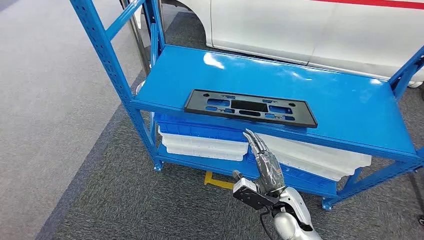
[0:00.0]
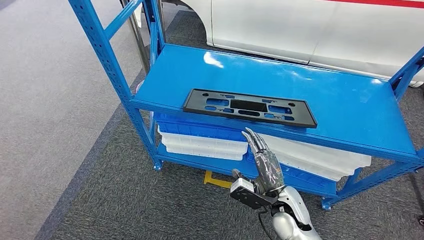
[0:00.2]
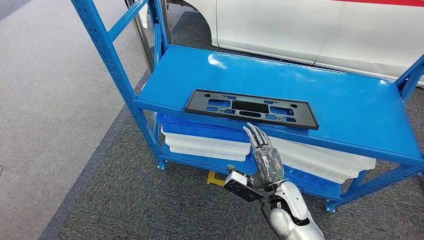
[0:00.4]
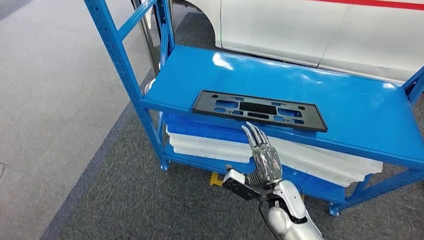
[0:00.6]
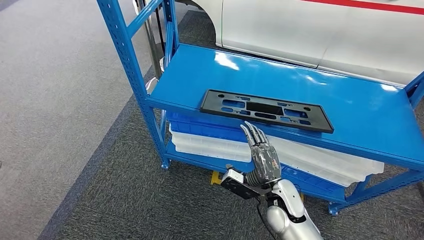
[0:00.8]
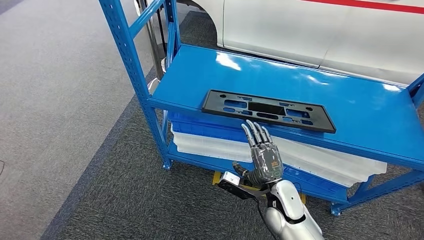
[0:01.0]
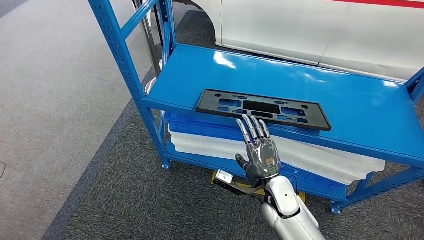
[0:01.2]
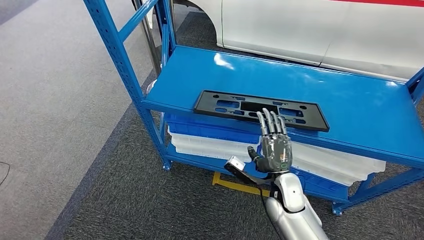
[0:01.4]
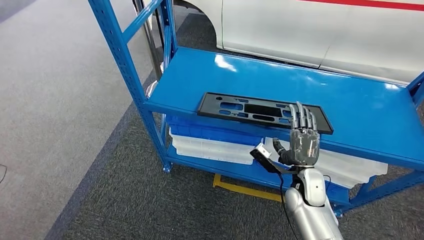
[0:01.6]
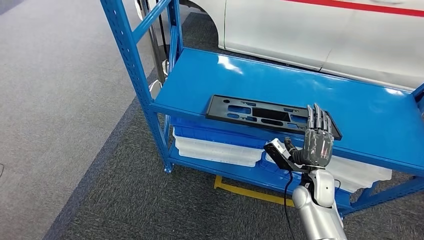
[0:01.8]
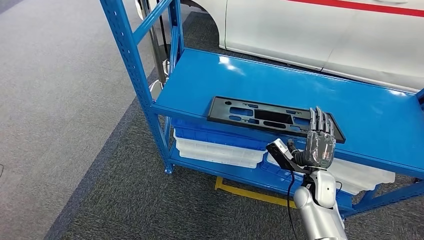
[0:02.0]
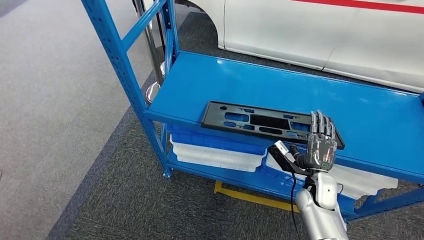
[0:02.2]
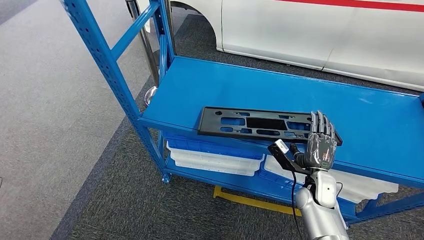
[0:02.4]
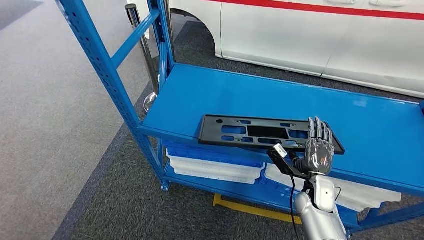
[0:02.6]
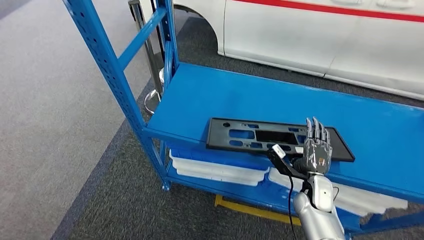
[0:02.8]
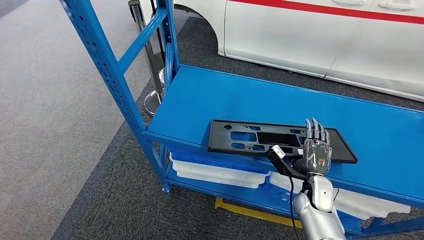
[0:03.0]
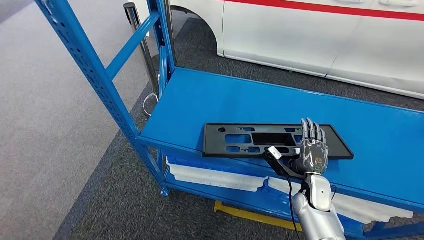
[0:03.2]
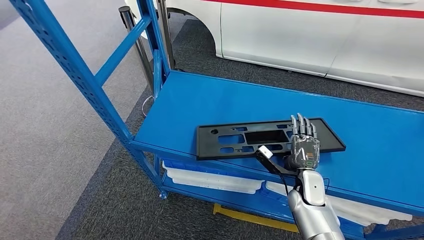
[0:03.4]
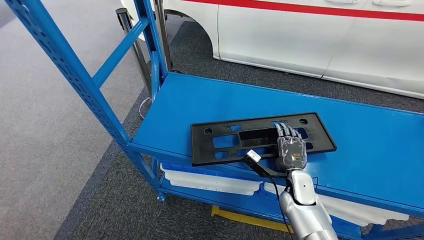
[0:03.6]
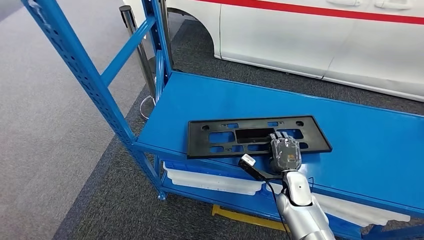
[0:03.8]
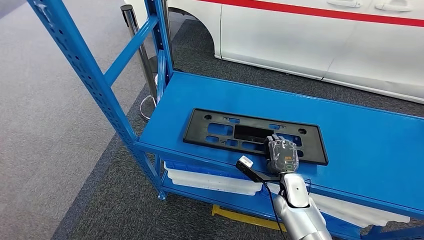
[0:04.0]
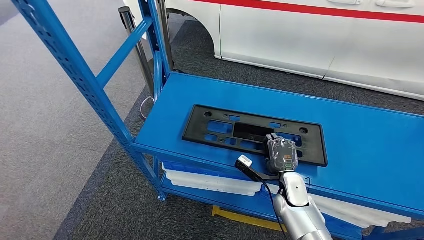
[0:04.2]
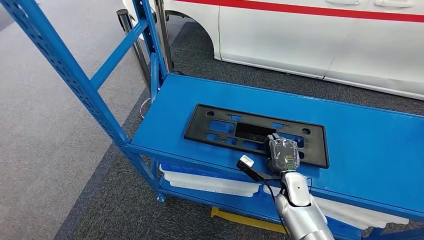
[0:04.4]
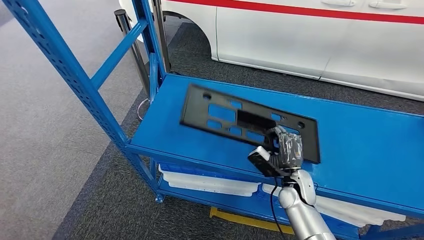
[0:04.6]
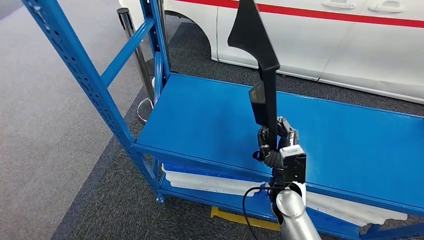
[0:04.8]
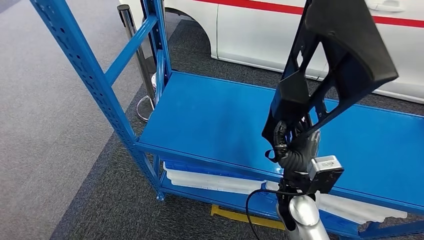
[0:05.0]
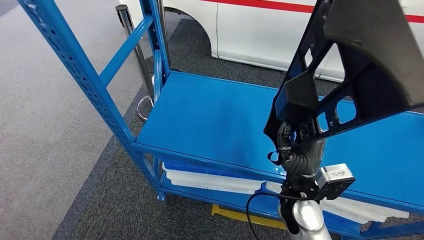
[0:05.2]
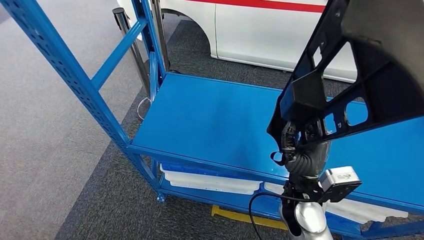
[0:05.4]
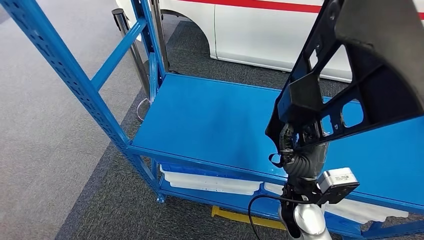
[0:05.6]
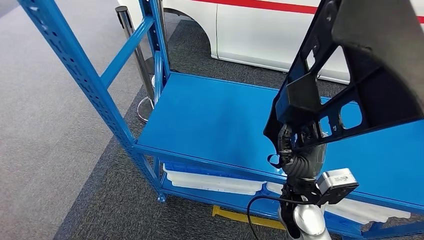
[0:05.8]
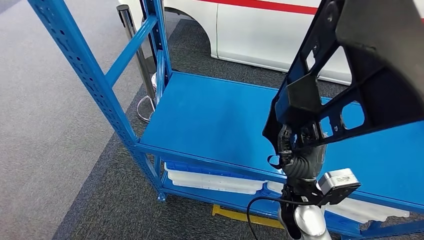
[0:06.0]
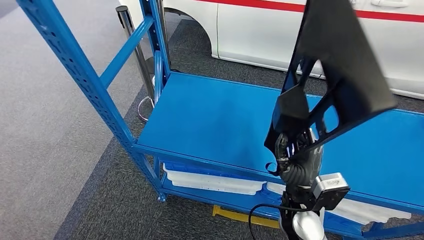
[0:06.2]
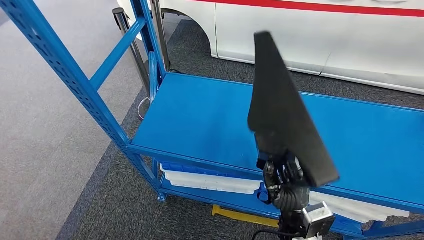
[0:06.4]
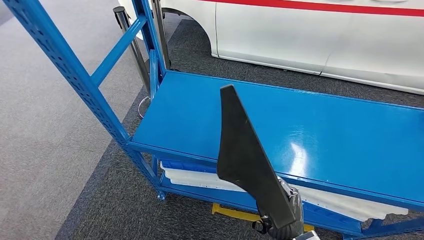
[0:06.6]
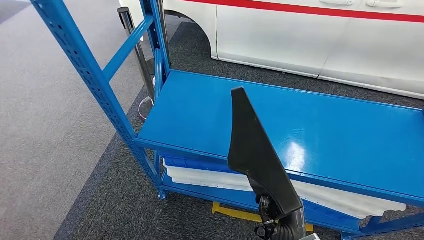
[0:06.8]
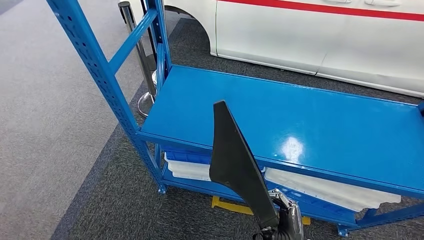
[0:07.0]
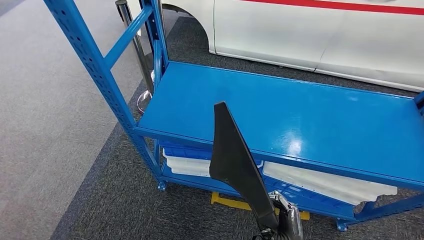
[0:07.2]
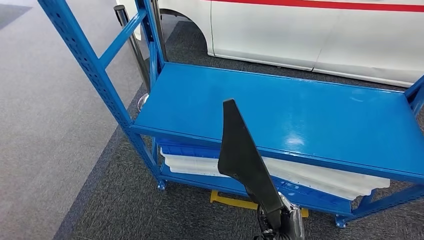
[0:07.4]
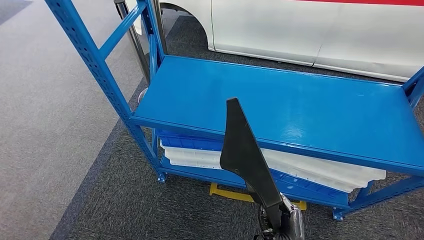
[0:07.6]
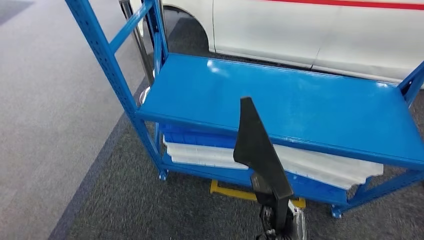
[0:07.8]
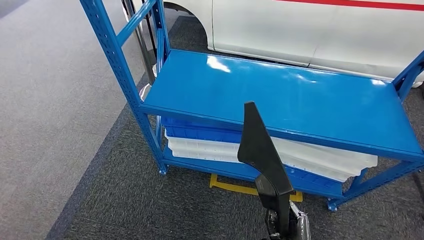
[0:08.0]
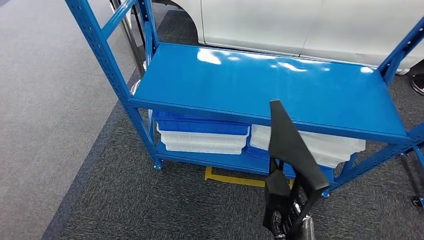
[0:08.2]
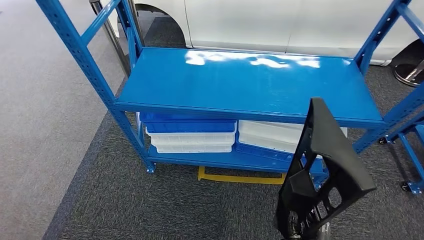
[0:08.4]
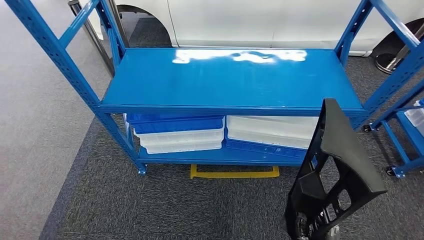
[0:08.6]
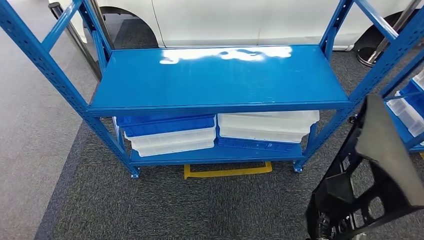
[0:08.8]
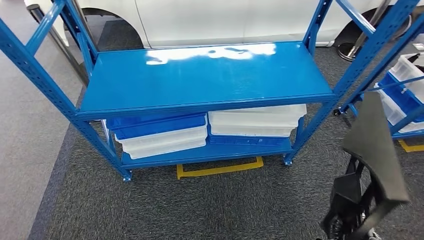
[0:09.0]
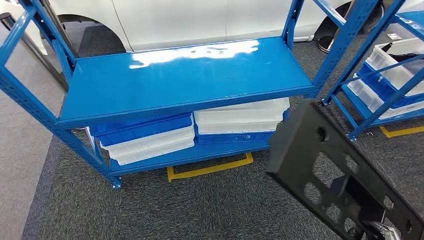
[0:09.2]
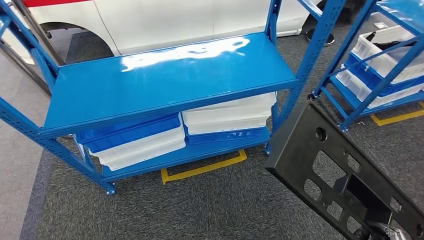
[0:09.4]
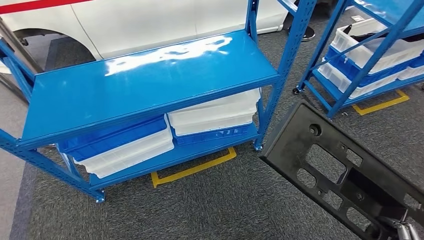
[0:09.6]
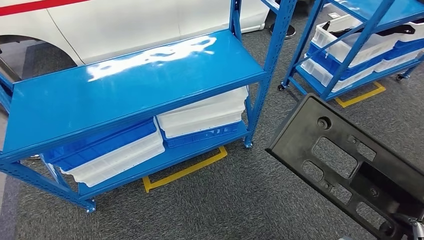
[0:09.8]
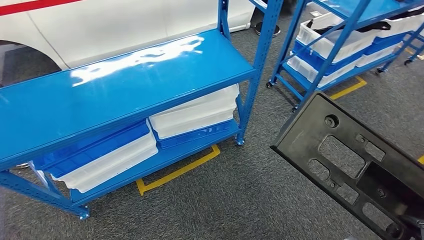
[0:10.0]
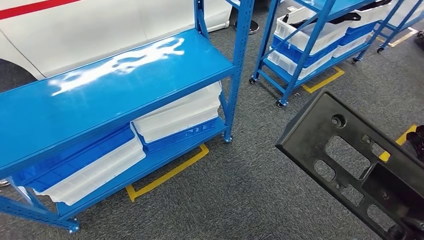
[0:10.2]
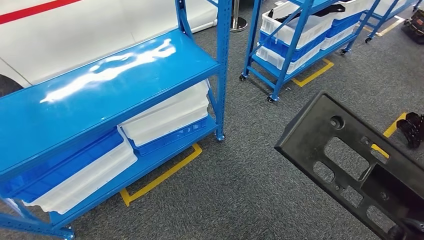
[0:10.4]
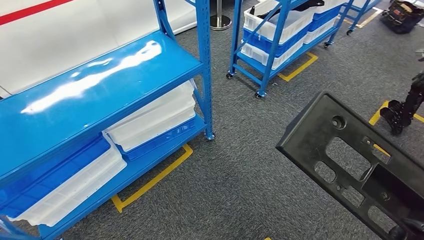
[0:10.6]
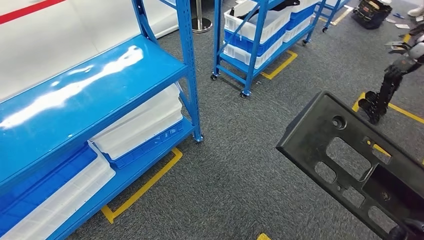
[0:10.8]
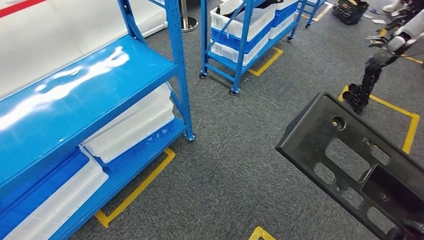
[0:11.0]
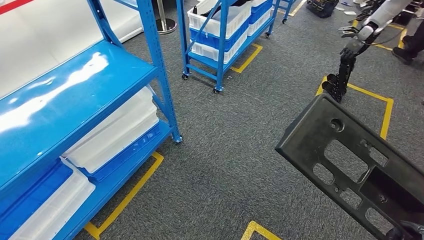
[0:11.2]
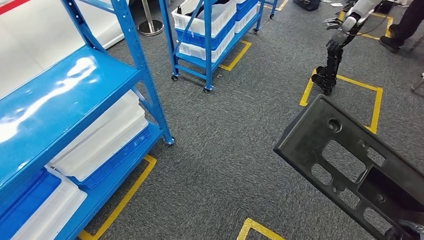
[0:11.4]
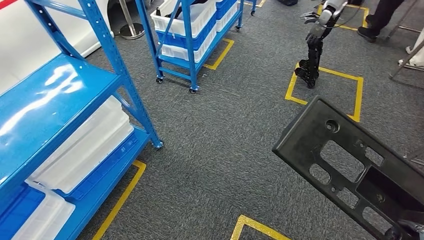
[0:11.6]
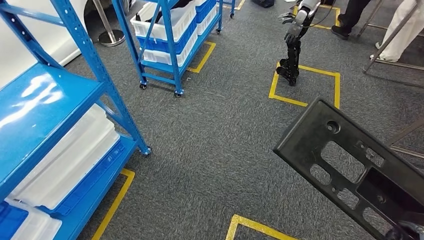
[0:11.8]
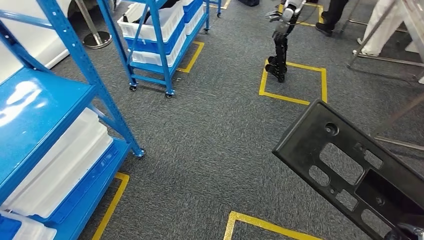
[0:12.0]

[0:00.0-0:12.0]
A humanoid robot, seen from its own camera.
Step, 0:00.0 to 0:06.6: Pick up the large material from the shelf.

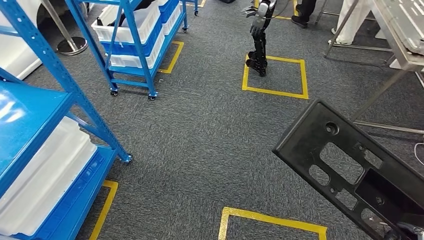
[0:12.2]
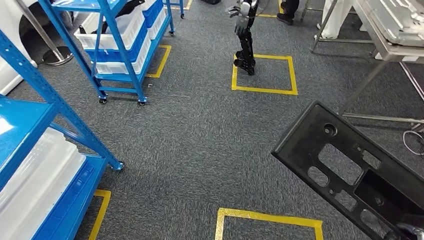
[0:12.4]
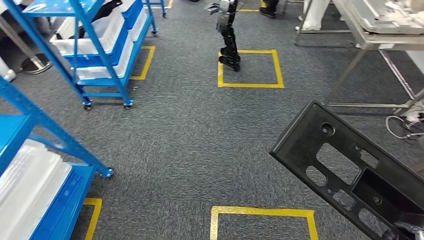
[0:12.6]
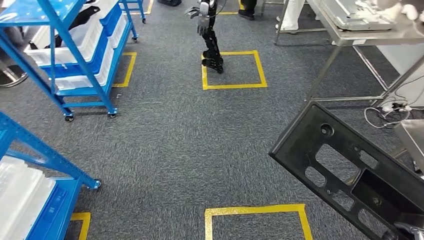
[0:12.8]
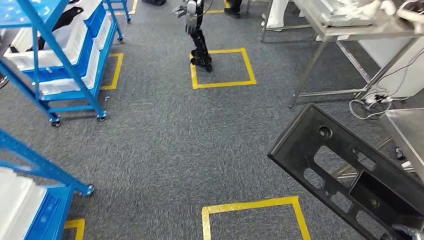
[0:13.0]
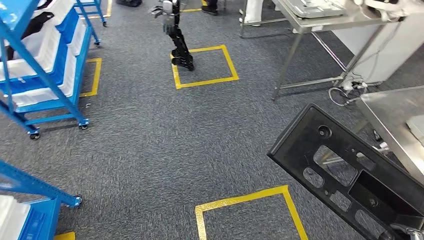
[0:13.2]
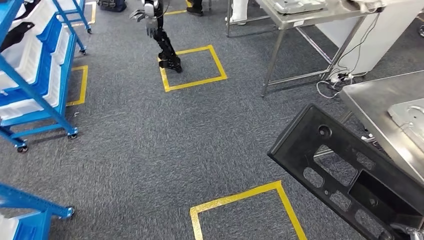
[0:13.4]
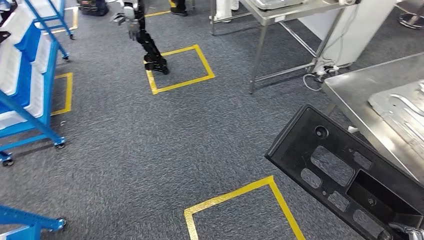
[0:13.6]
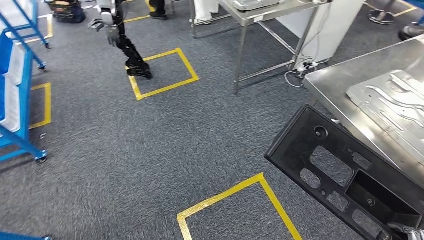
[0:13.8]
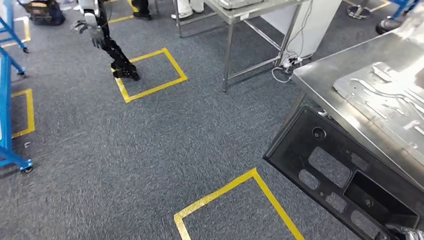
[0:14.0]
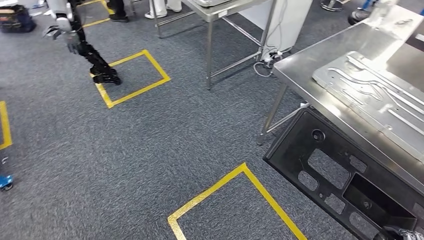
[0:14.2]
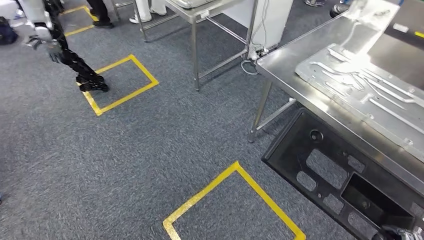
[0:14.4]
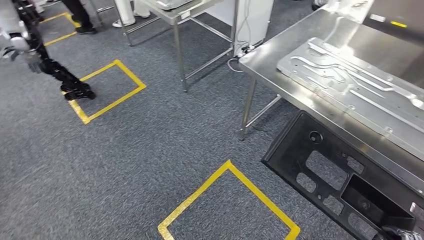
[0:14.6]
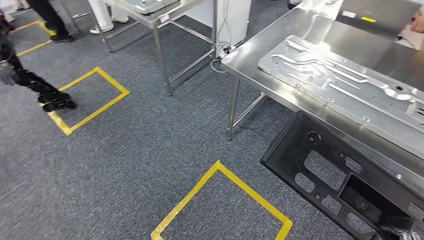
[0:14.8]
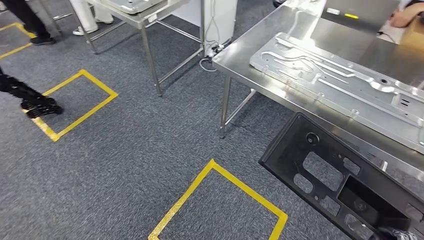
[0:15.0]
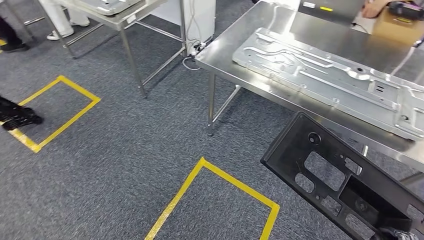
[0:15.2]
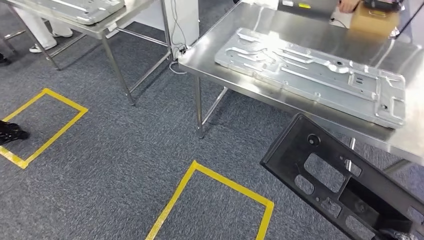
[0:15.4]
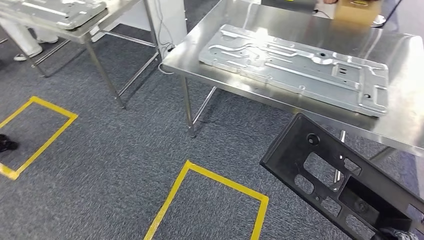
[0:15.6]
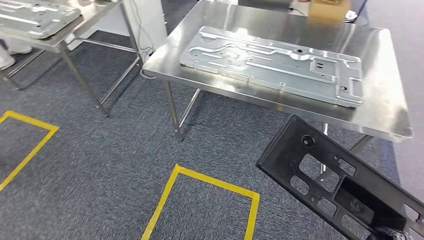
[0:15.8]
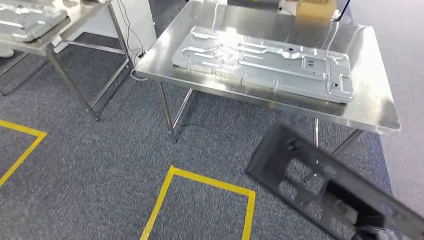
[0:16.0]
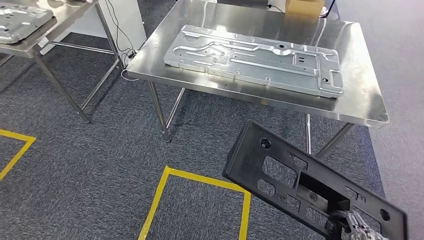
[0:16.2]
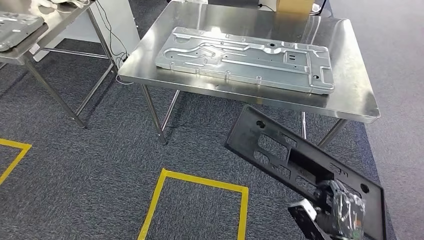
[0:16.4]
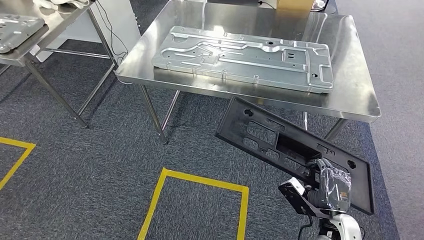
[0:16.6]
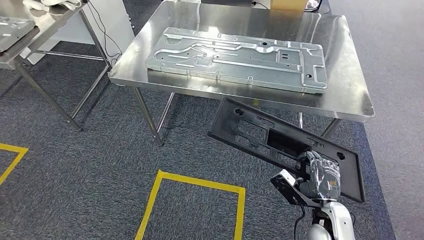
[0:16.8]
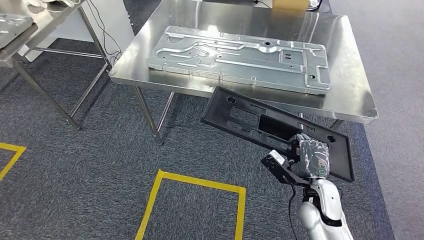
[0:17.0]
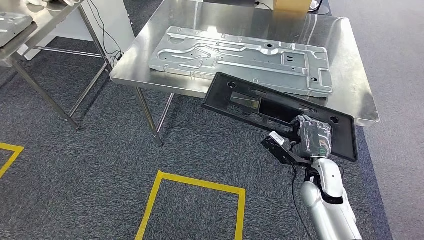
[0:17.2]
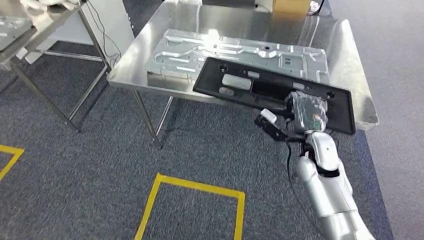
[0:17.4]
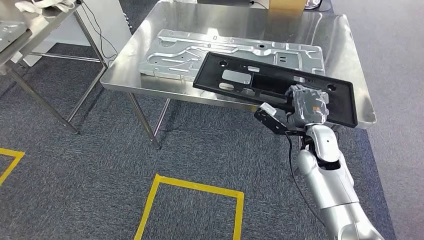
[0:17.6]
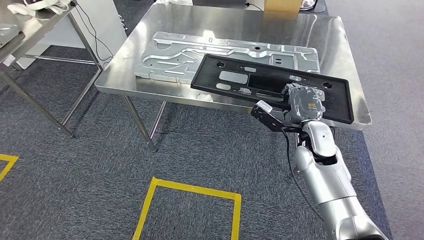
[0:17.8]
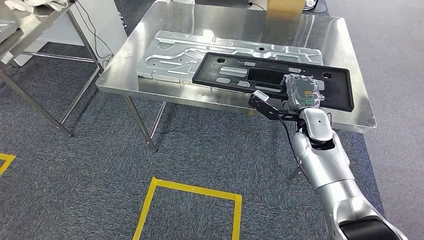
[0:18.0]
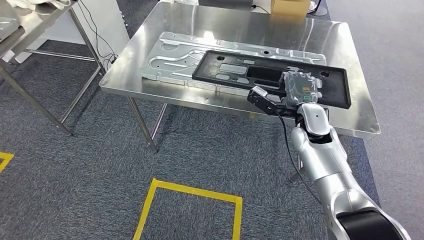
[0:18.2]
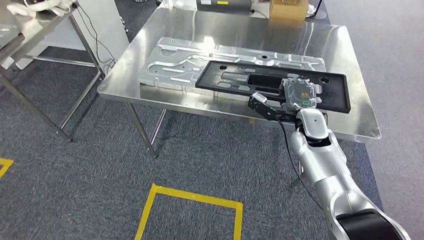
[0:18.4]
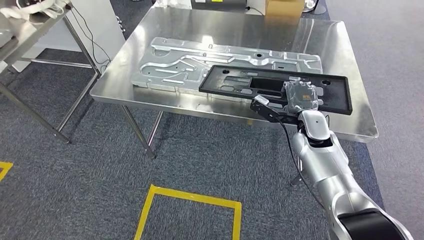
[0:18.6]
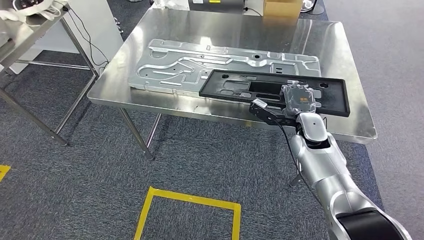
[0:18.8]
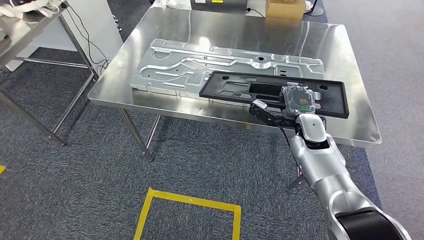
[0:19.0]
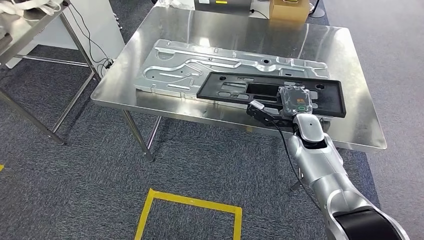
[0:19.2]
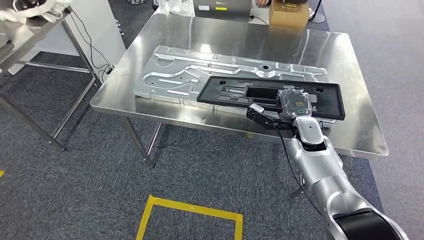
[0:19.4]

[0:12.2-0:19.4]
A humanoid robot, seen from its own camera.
Step, 0:12.2 to 0:19.0: Move the large material to the workbench.
